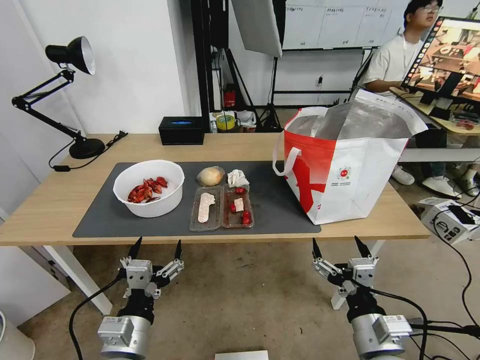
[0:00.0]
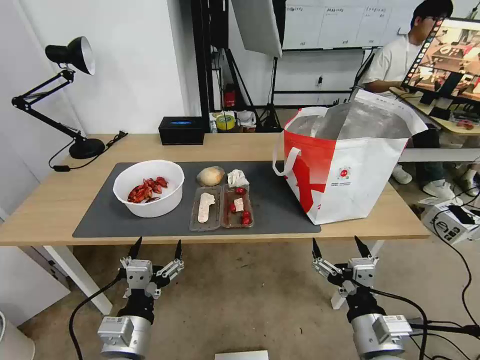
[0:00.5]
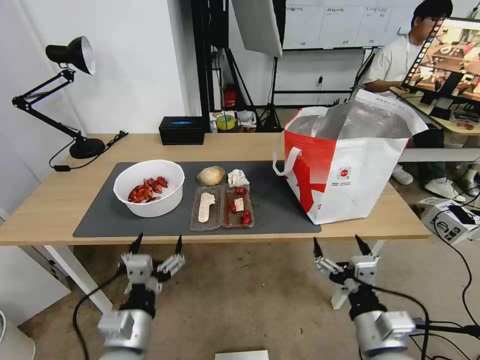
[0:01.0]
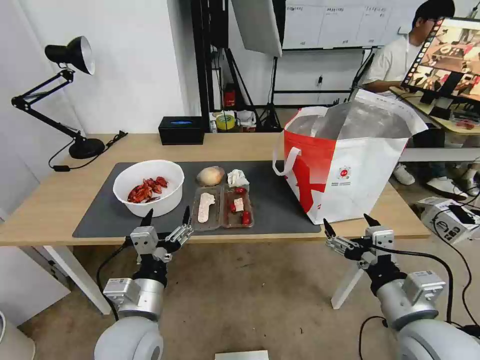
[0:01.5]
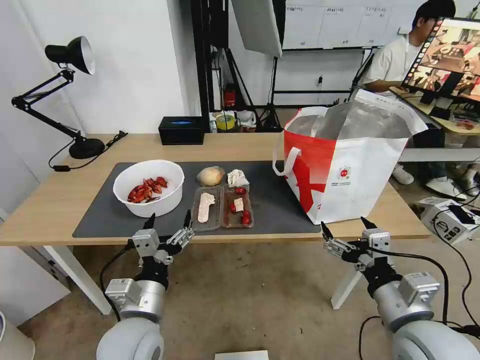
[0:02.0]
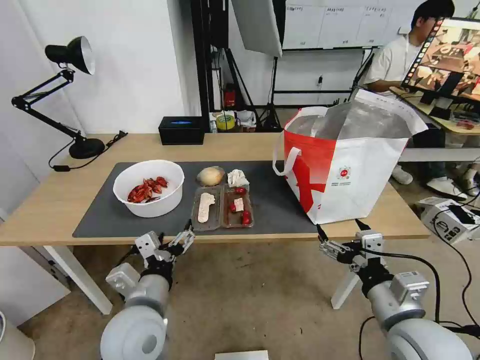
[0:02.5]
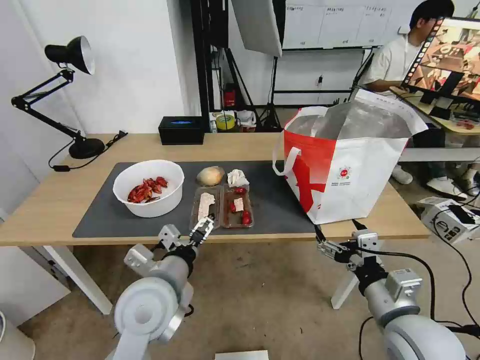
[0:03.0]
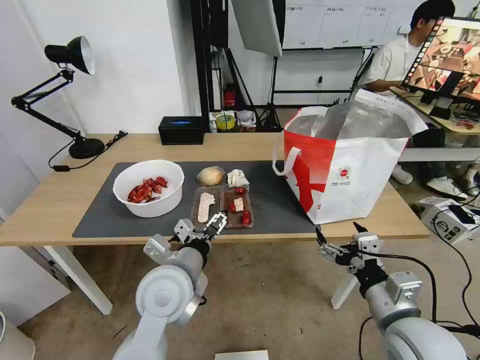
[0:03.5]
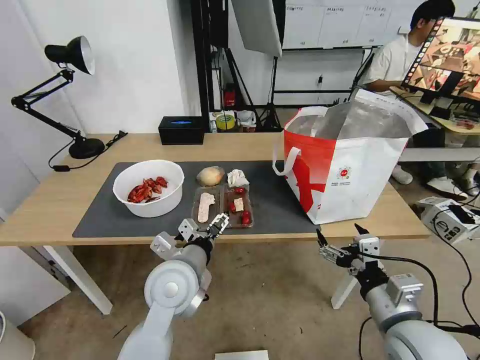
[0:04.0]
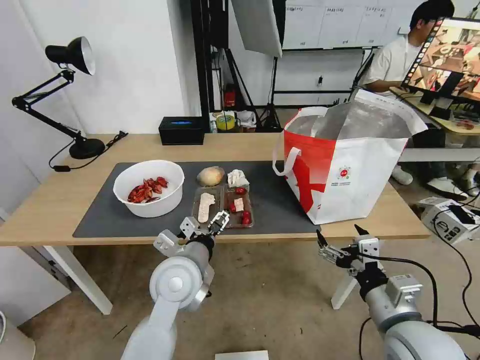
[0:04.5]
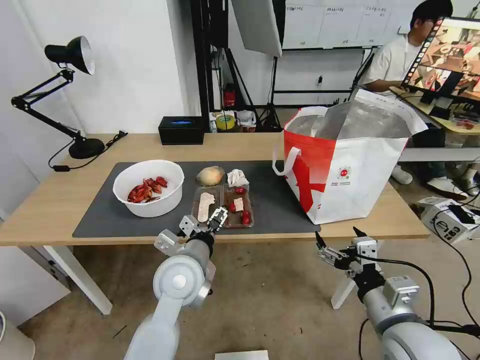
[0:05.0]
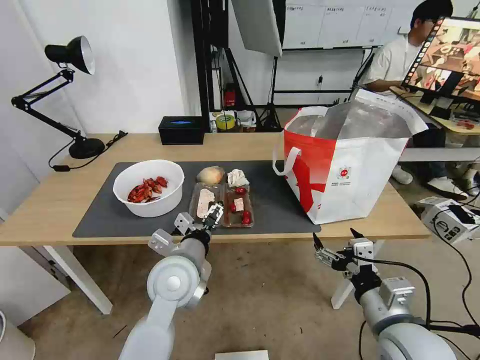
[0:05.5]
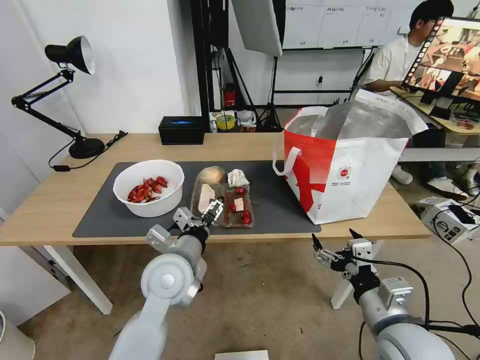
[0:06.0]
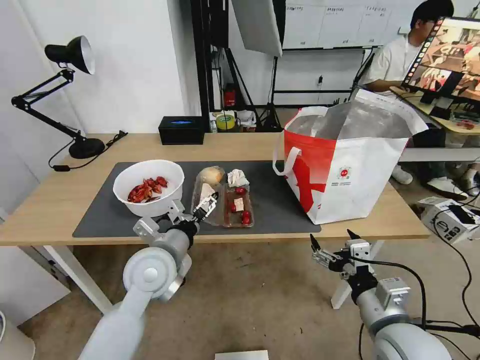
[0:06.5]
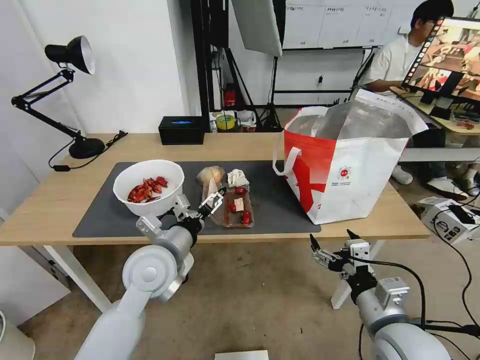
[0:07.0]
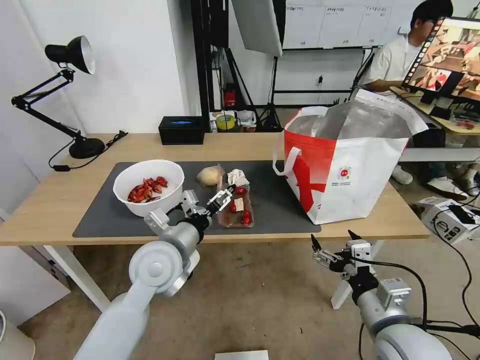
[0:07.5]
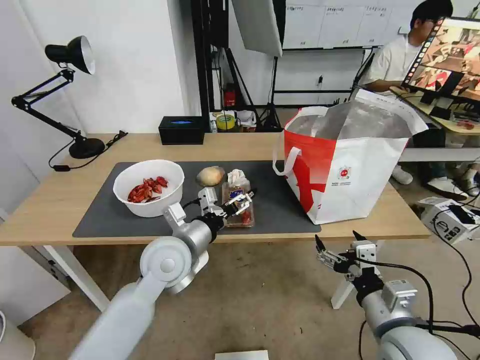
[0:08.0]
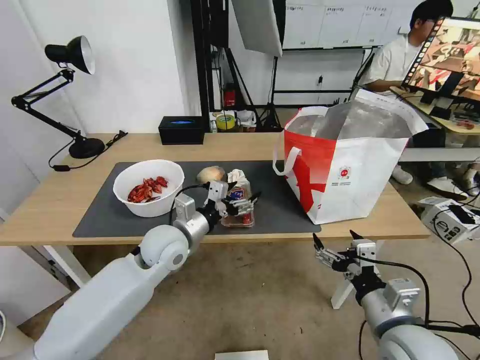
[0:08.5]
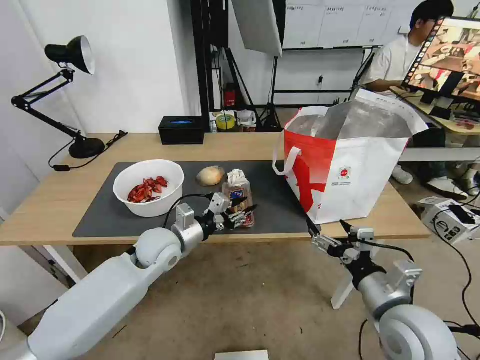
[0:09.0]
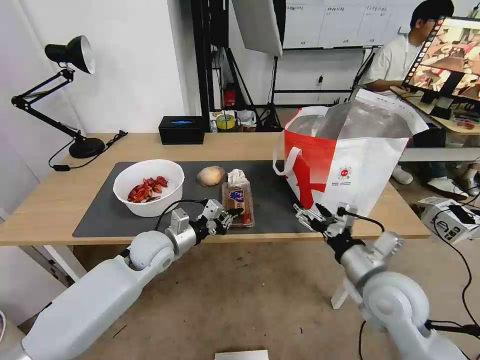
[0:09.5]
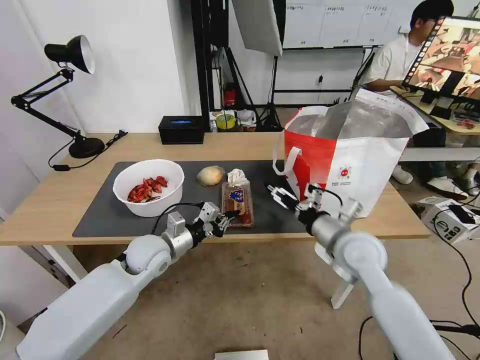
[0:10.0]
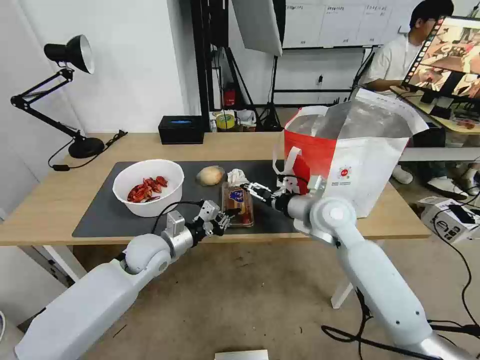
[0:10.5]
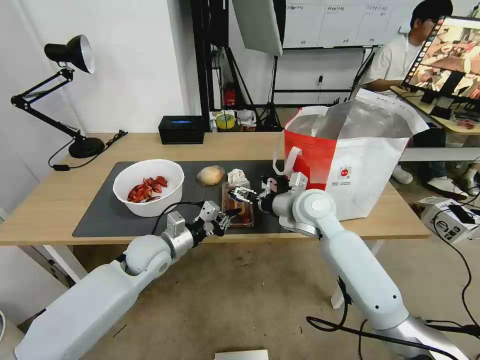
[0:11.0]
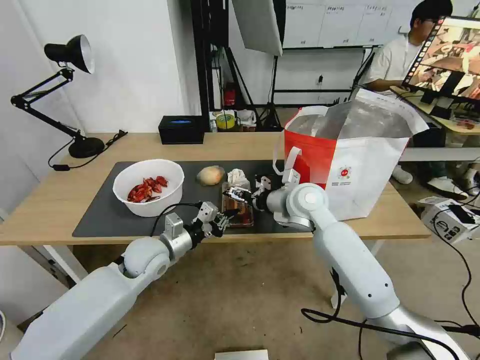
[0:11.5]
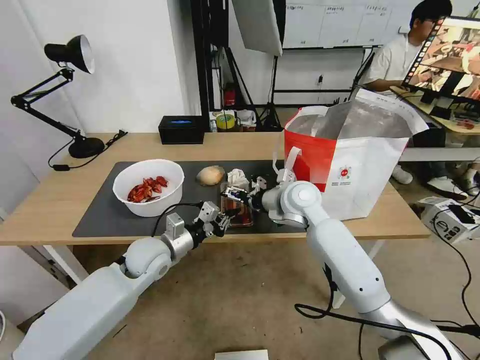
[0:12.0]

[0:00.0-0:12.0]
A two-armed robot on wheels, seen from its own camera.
Task of the whole recording: Pick up the trash from the table and place it into the takeout bag.
0:02.0 to 0:04.0: The left gripper is displaced forward and to the right by some 10 cm.
0:04.0 to 0:06.0: There are only small adjustments of the grippers.
0:08.0 to 0:10.0: The left gripper goes some 10 cm downward, to the left and forward, and closes; the right gripper goes roughly 15 cm forward.
0:10.0 to 0:12.0: The right gripper heads forward and to the left, covering approximately 15 cm.

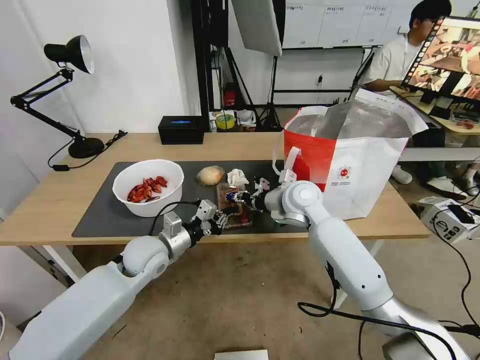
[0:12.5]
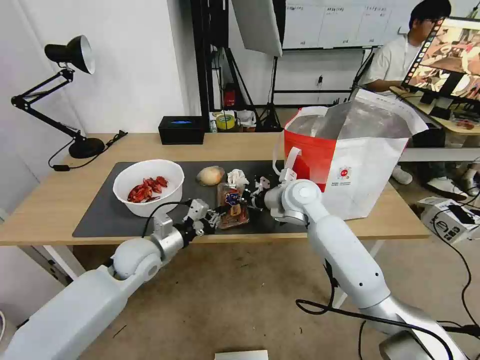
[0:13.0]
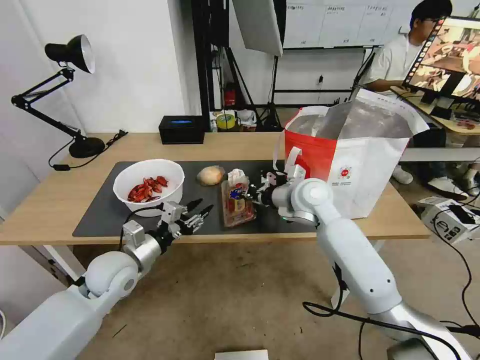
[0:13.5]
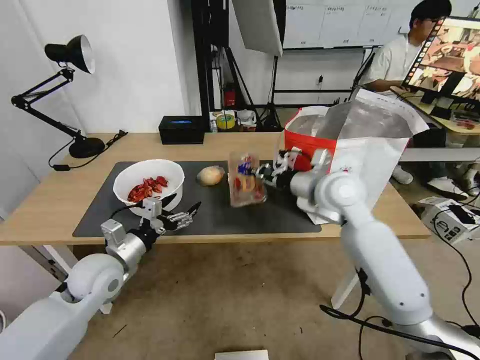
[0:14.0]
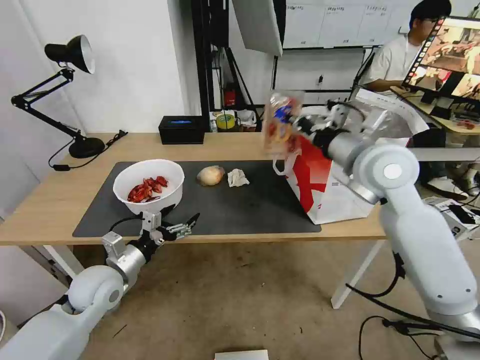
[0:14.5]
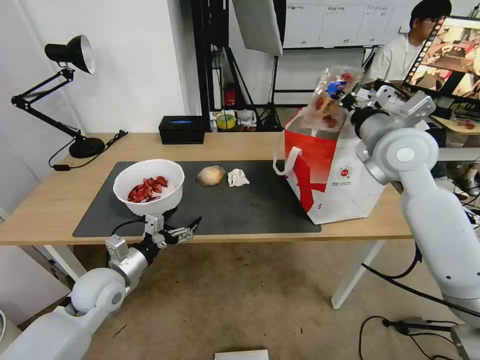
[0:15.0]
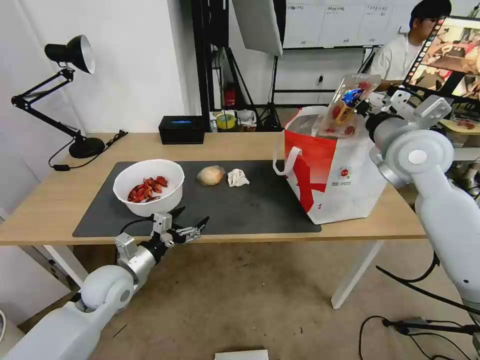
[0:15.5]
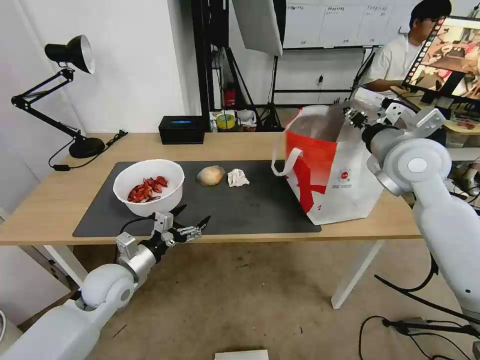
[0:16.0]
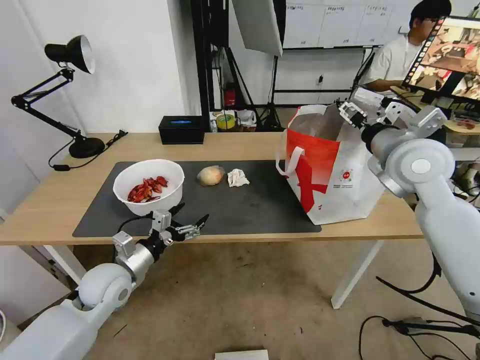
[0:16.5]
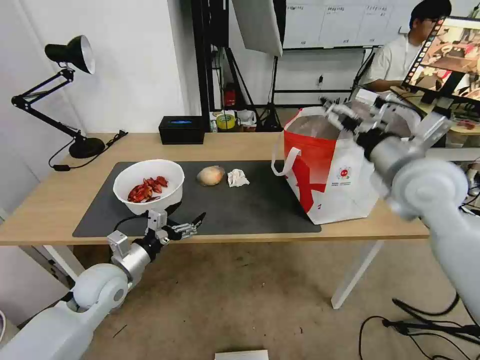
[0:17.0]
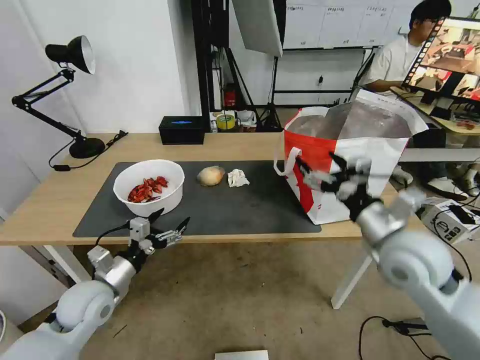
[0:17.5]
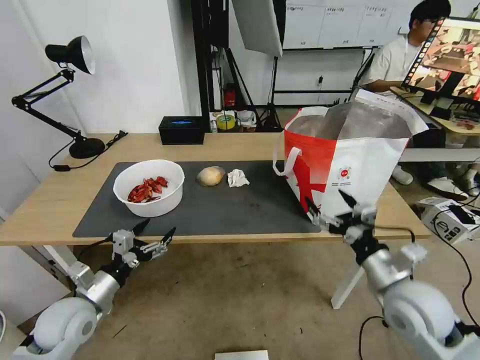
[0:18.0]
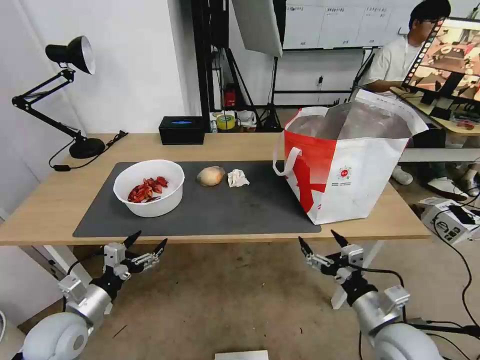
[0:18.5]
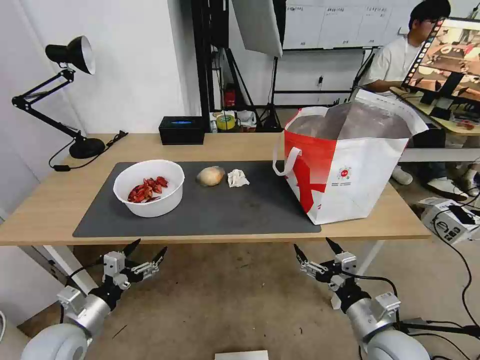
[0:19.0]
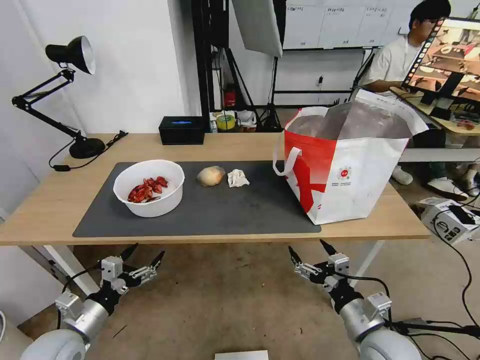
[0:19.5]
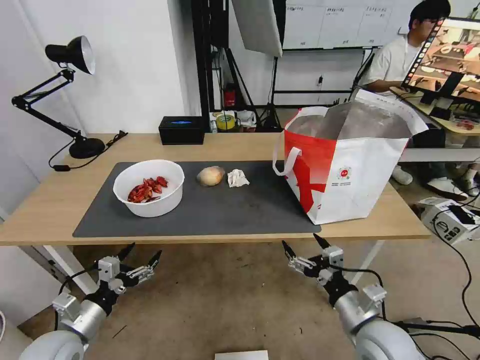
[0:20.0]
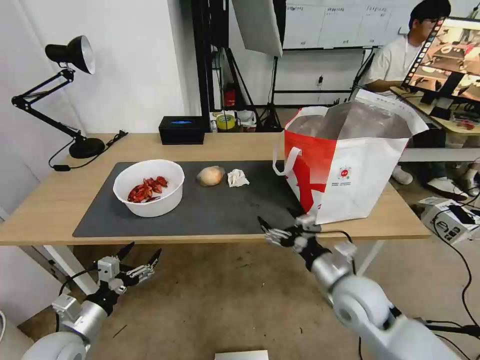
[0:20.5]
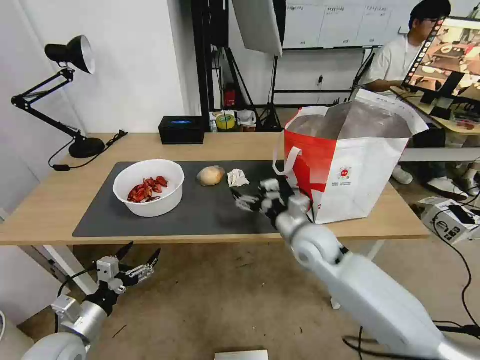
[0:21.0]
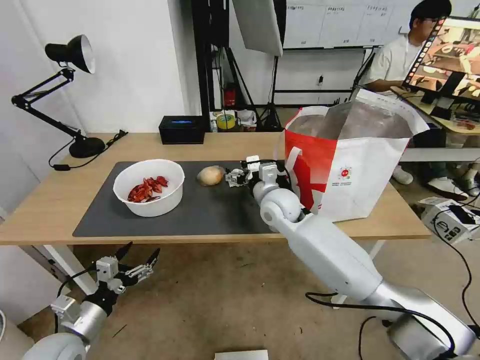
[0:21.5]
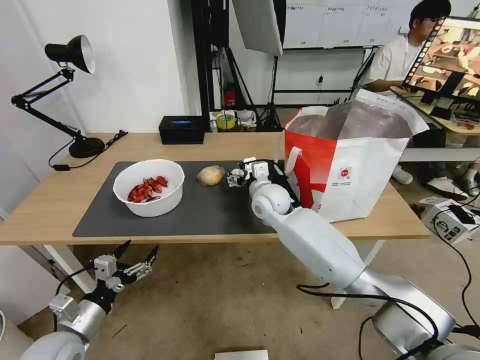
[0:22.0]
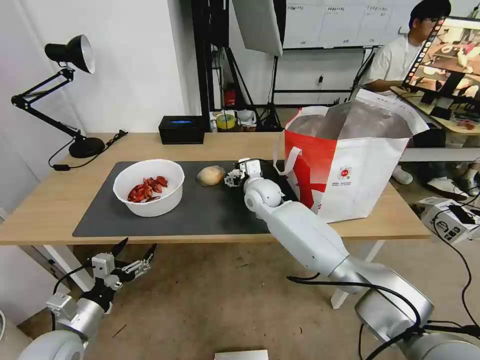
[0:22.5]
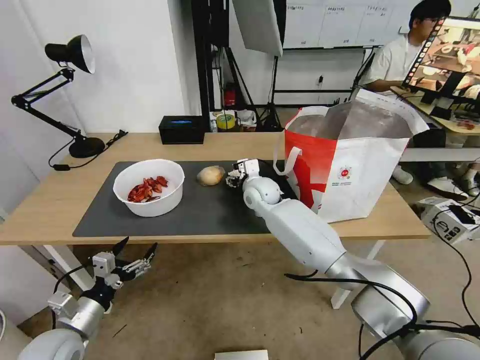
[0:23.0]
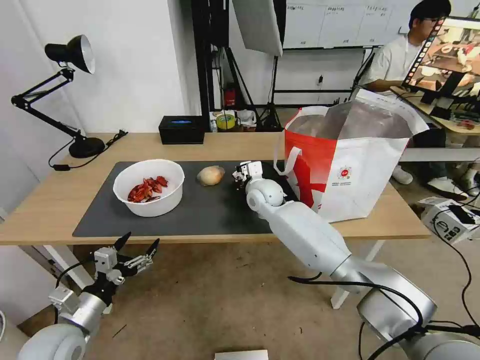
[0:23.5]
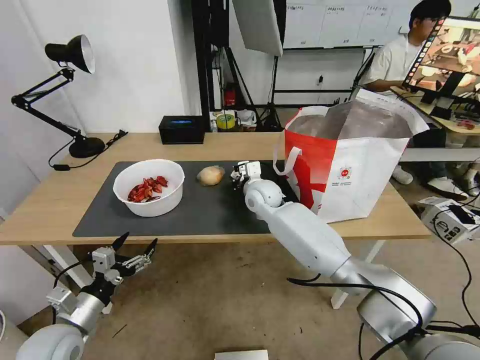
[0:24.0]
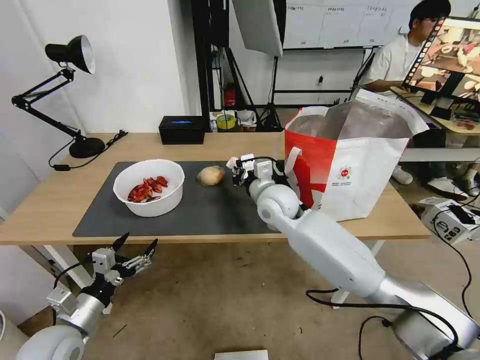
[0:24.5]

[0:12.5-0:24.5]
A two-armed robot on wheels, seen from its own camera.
Task of the whole recording: Pick up the trash from the table and place it into the takeout bag.
0:12.5 to 0:14.5: The right gripper heads upward, to the right and backward, covering some 20 cm, and closes up. The left gripper is displaced to the left and backward by approximately 10 cm, and opens its fingers.
0:14.5 to 0:16.5: The right gripper heads to the right, covering some 5 cm, and opens.
0:16.5 to 0:18.5: The left gripper moves backward and to the left, some 10 cm. Meanwhile the right gripper shifts about 35 cm downward and backward.
0:18.5 to 0:20.5: The right gripper is displaced forward and to the left by about 10 cm.
0:20.5 to 0:22.5: The right gripper heads forward and to the left, covering roughly 30 cm.
0:22.5 to 0:24.5: The right gripper heads backward, covering approximately 5 cm, and closes up.

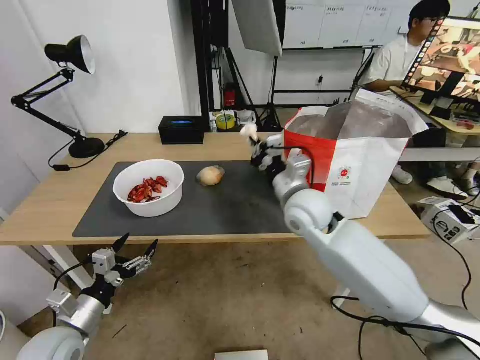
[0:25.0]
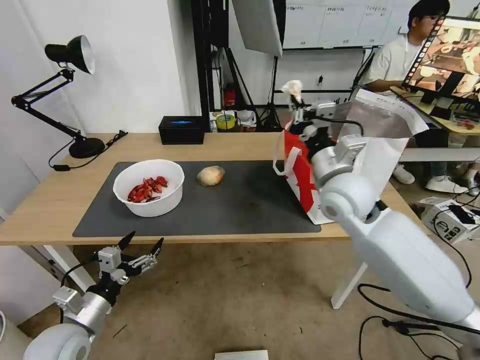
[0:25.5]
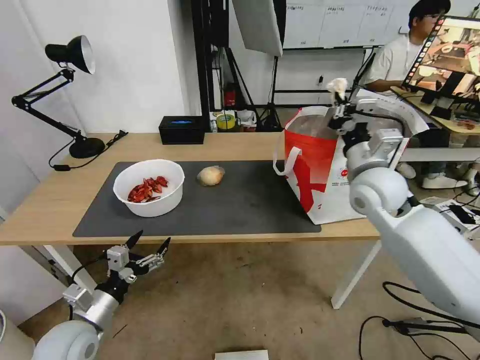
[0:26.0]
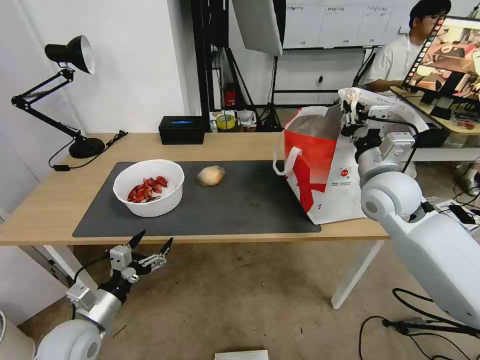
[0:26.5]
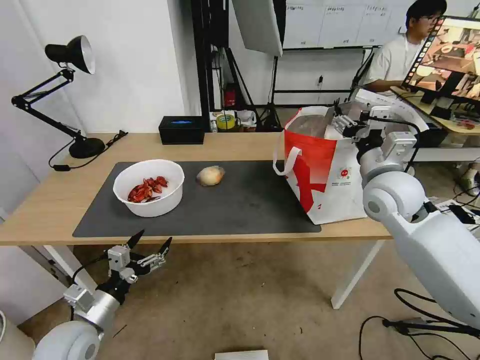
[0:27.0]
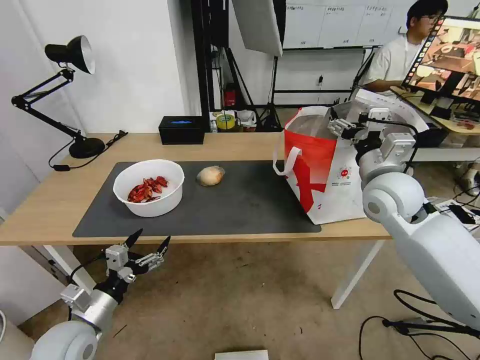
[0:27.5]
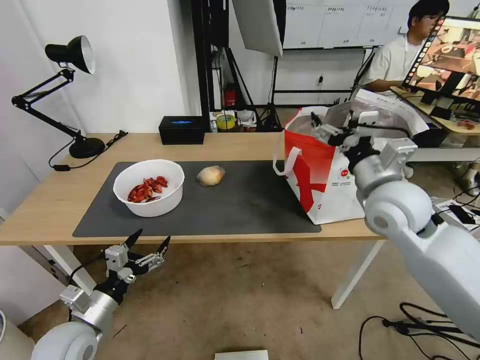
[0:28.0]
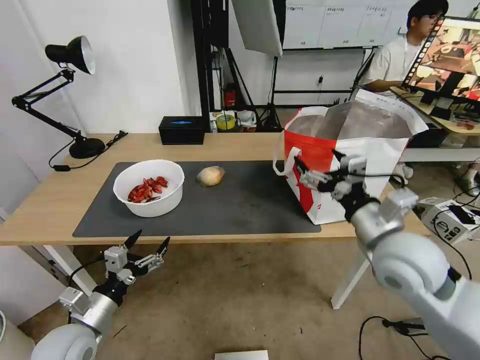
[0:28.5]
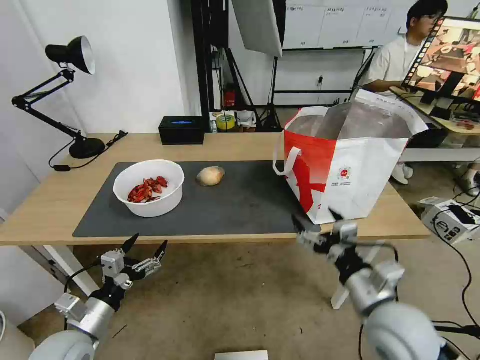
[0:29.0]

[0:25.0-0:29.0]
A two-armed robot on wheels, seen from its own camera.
Task of the whole recording: Pick up the trash from the table and place it into the takeout bag.
0:25.0 to 0:27.0: The right gripper heads to the right, covering some 15 cm, and opens its fingers.
0:27.0 to 0:29.0: The right gripper is displaced backward and downward by about 25 cm.
